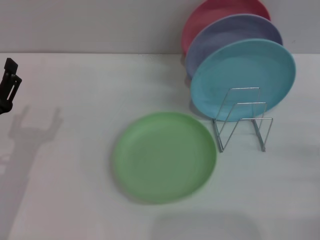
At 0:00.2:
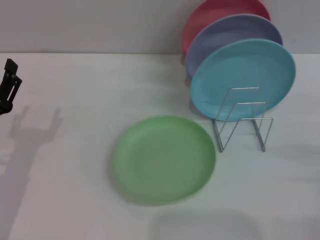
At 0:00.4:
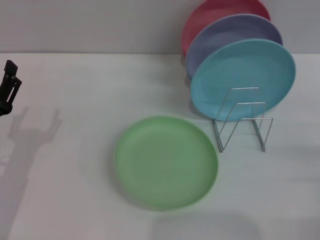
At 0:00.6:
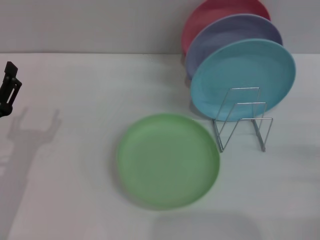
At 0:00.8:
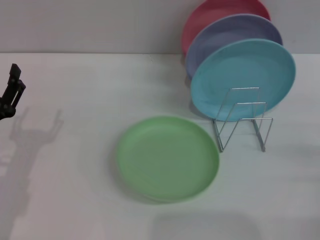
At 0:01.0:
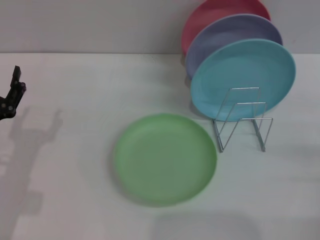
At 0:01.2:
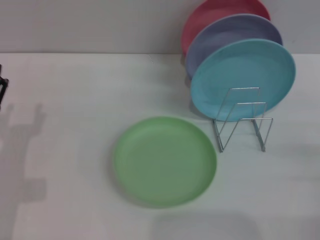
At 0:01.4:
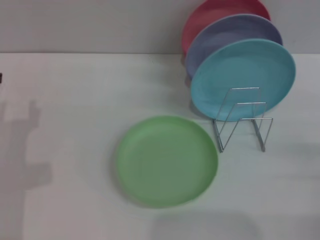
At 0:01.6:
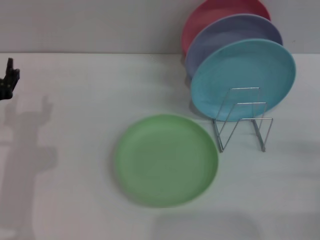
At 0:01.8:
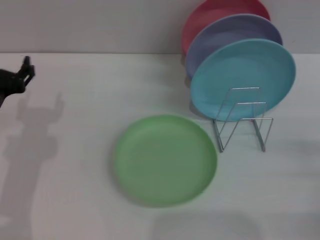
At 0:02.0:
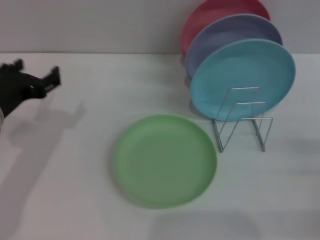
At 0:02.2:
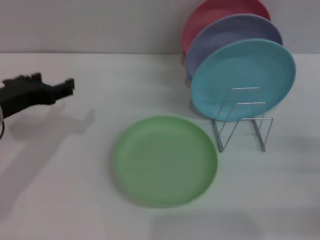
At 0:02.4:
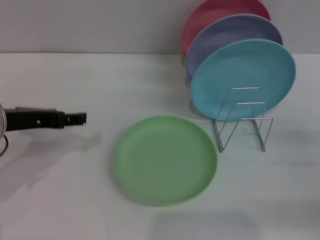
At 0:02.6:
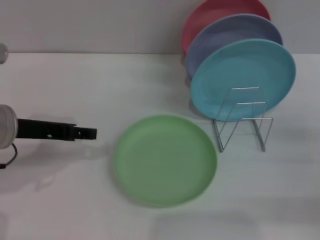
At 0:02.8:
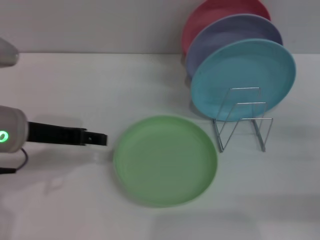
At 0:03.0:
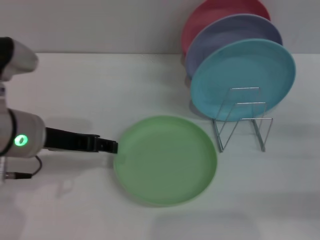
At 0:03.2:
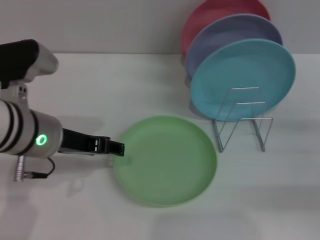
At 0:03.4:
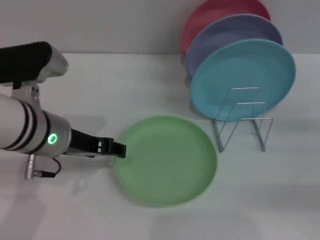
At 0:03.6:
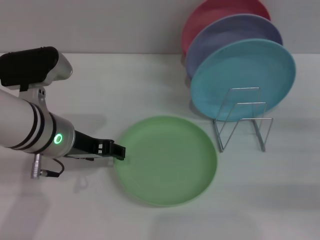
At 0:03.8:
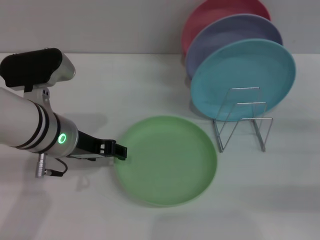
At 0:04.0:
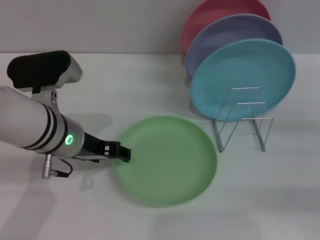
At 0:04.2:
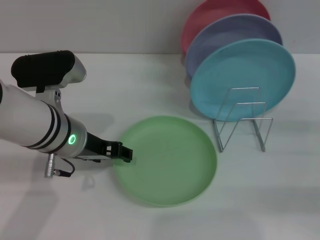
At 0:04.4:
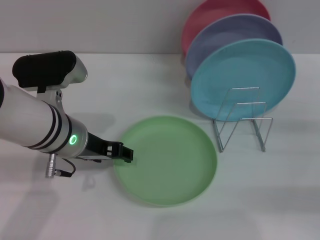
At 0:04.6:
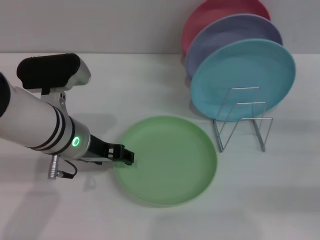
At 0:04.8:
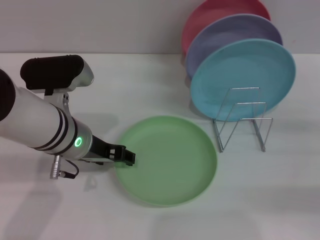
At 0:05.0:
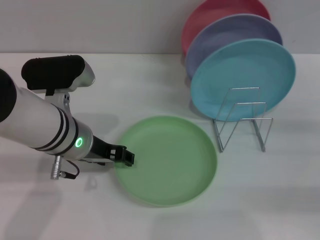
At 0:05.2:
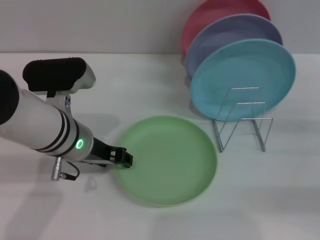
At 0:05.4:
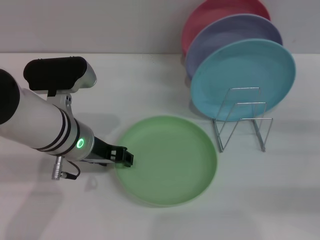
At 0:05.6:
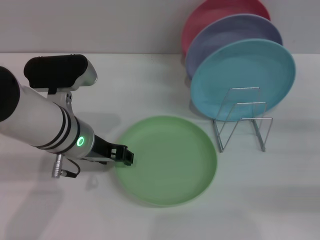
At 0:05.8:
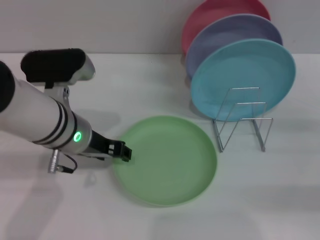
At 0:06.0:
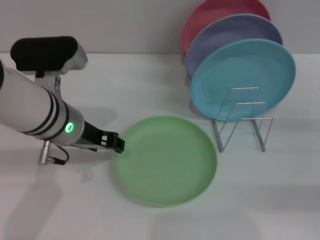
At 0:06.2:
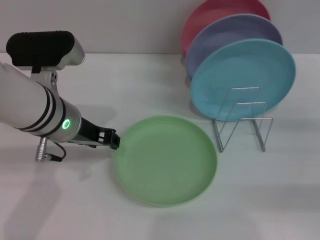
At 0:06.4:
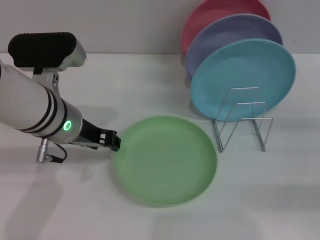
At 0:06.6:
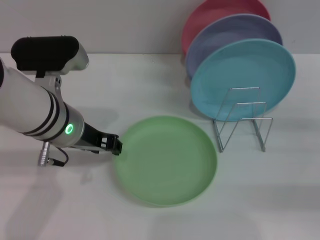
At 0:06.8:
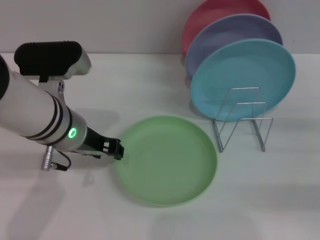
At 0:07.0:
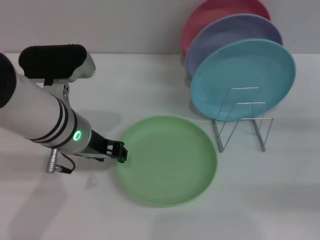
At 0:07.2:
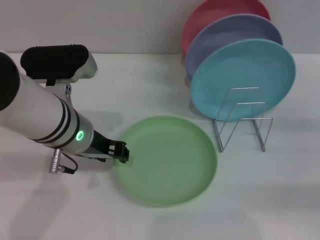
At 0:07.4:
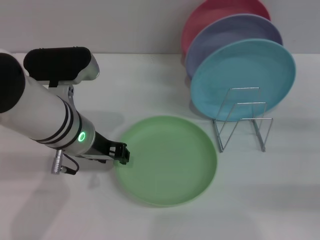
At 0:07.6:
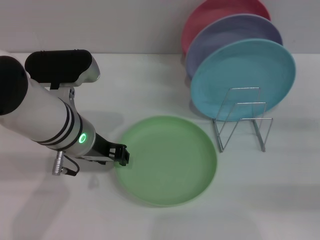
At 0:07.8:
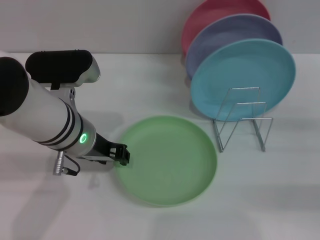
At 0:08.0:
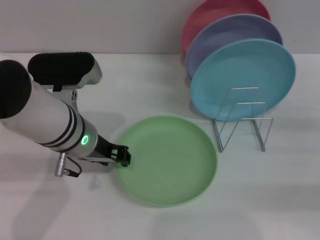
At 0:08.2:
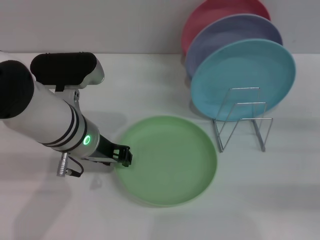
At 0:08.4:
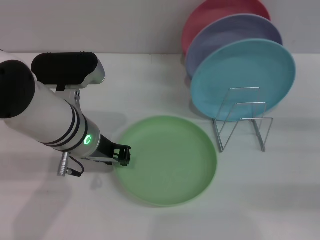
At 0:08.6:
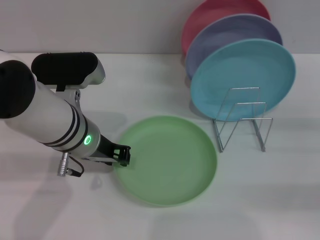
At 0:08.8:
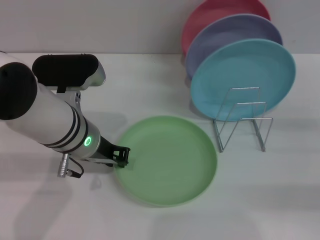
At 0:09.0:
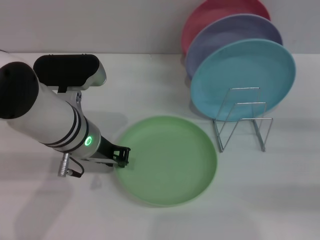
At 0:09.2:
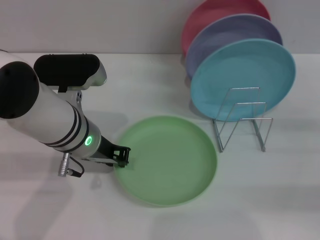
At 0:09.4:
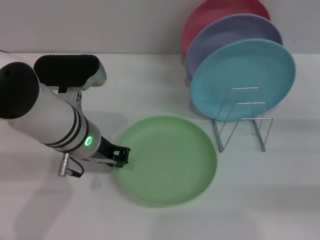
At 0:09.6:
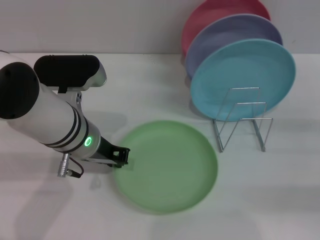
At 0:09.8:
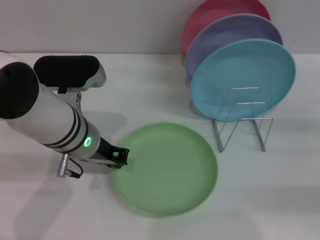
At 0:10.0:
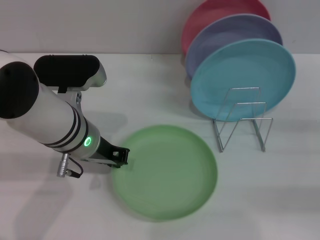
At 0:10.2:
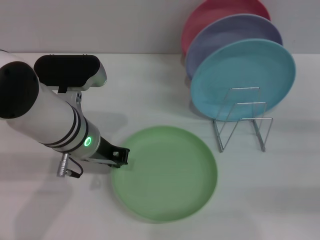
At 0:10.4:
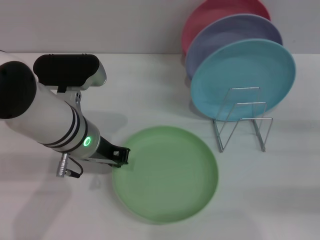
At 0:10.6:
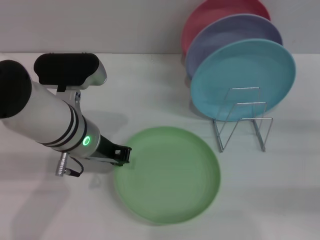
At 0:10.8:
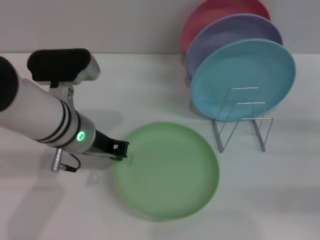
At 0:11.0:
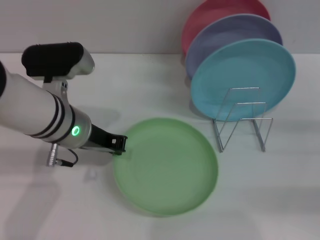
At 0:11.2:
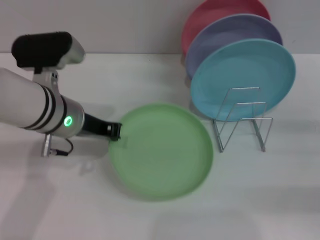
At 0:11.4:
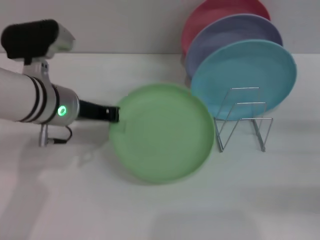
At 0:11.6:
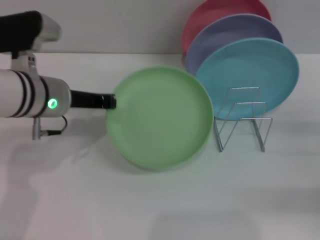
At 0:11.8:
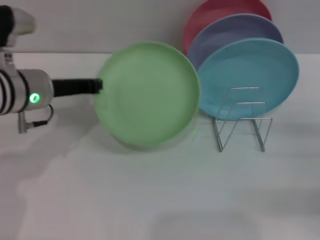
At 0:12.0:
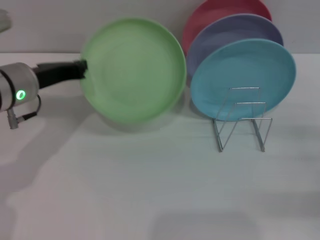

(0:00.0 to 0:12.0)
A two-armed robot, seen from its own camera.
Task of the whole recording: Grip the plate with one hand, pass it to the other, then set it on the shelf.
0:00.0 - 0:01.6: The left gripper shifts by roughly 5 cm.
0:01.6 - 0:03.0: The left gripper shifts about 10 cm upward and to the right.
0:03.0 - 0:04.4: The left gripper ends up some 5 cm from where it was.
0:04.4 - 0:07.6: The grippers make only small movements.
0:07.6 - 0:10.4: The two grippers keep their place.
0:10.4 - 0:12.0: The left gripper moves to the left, about 10 cm.

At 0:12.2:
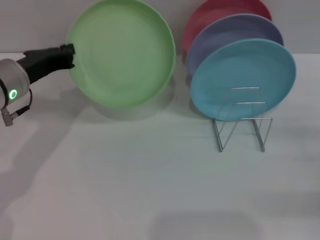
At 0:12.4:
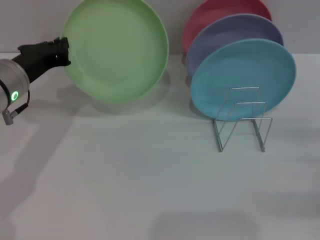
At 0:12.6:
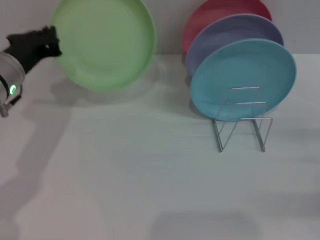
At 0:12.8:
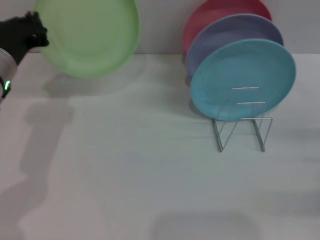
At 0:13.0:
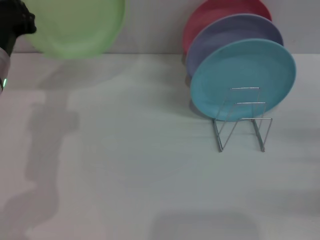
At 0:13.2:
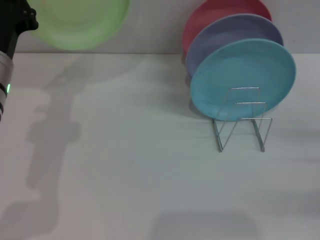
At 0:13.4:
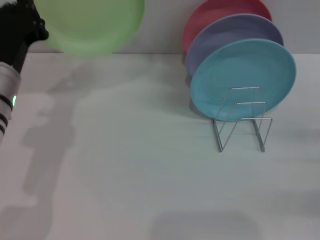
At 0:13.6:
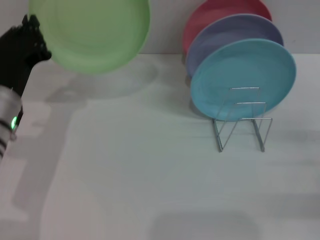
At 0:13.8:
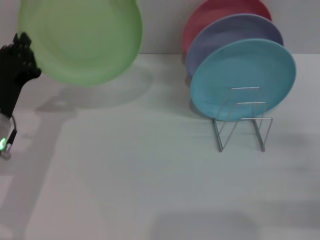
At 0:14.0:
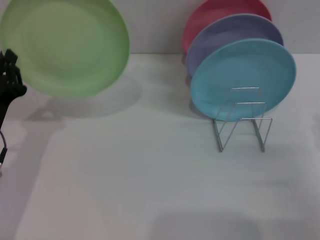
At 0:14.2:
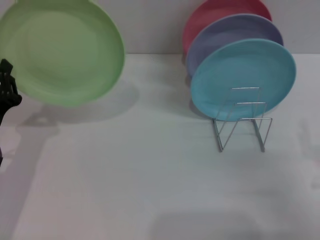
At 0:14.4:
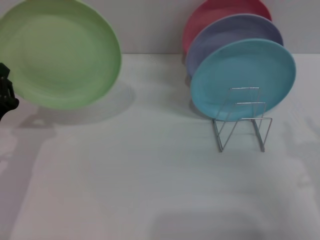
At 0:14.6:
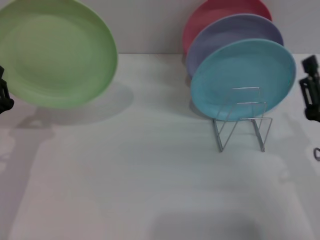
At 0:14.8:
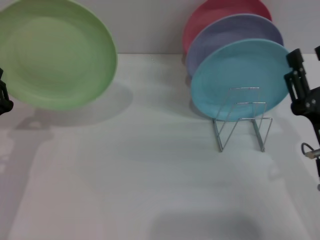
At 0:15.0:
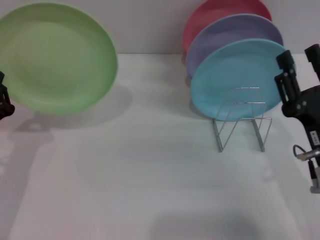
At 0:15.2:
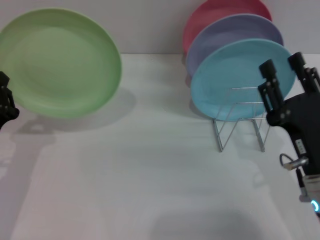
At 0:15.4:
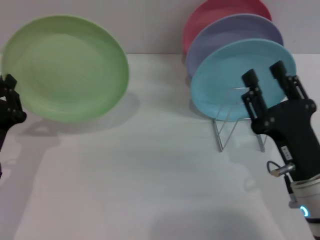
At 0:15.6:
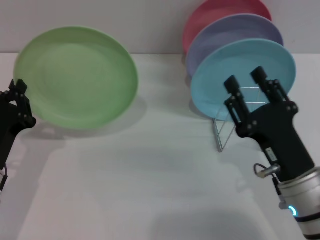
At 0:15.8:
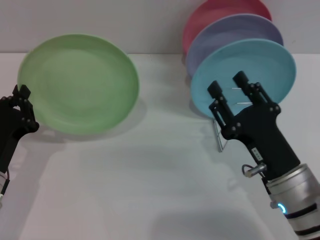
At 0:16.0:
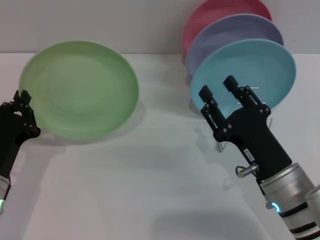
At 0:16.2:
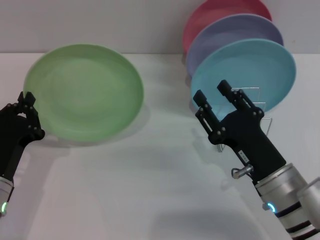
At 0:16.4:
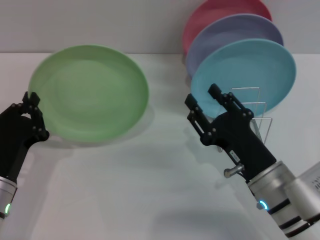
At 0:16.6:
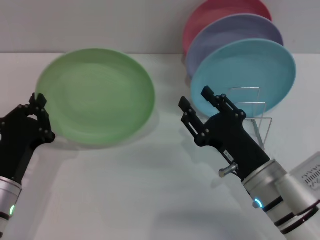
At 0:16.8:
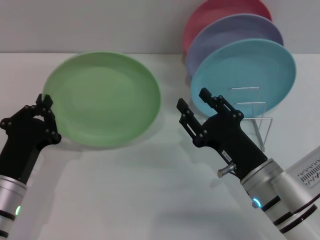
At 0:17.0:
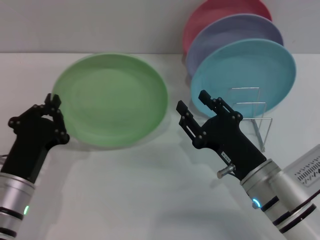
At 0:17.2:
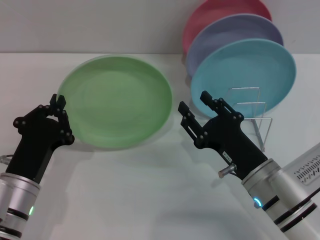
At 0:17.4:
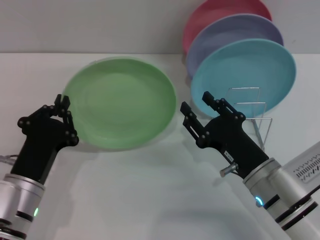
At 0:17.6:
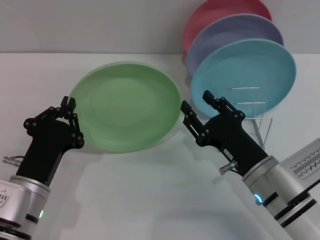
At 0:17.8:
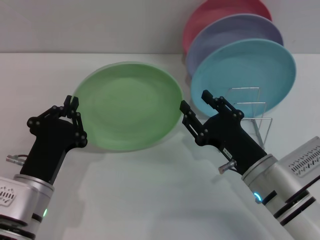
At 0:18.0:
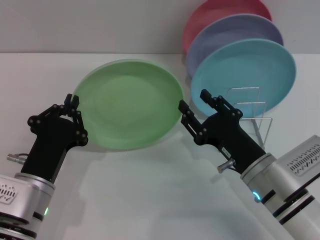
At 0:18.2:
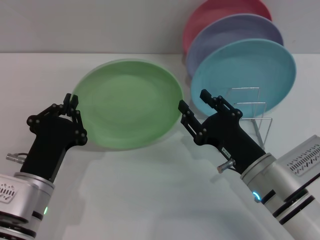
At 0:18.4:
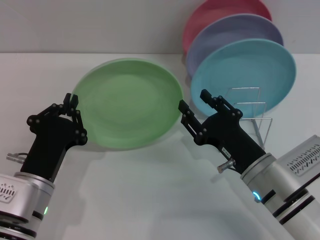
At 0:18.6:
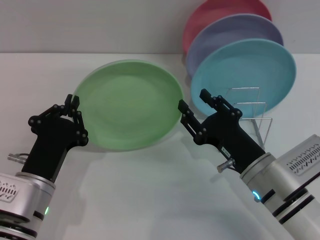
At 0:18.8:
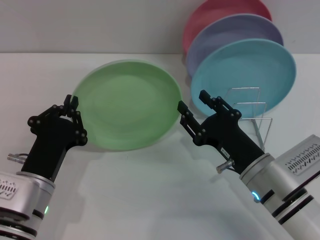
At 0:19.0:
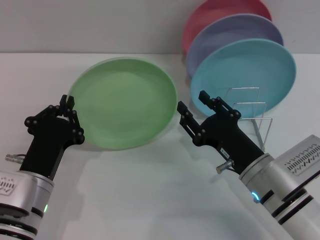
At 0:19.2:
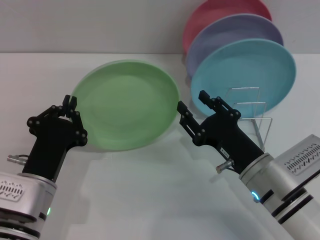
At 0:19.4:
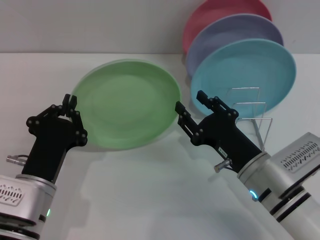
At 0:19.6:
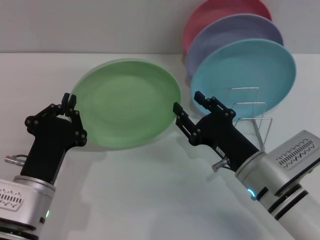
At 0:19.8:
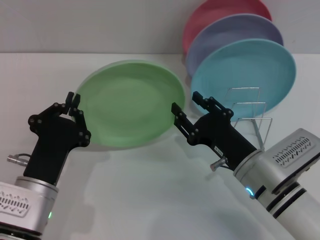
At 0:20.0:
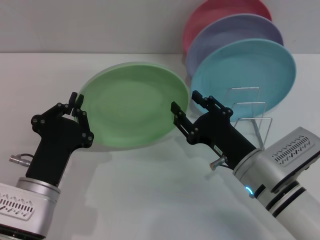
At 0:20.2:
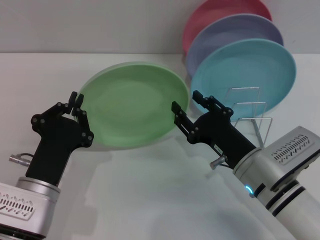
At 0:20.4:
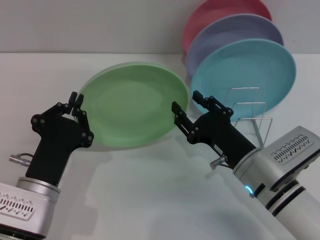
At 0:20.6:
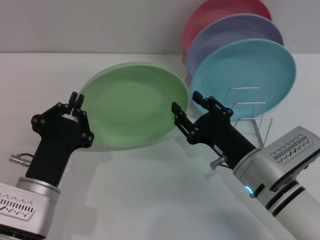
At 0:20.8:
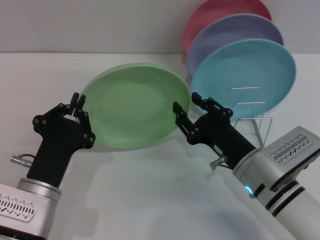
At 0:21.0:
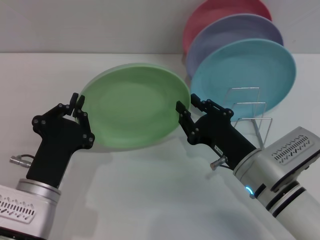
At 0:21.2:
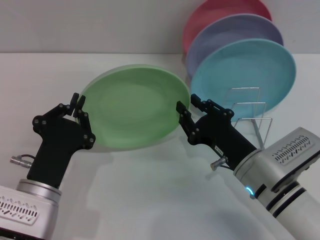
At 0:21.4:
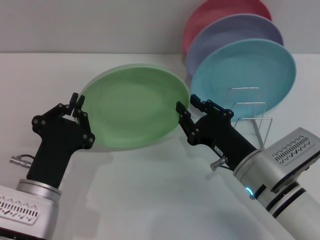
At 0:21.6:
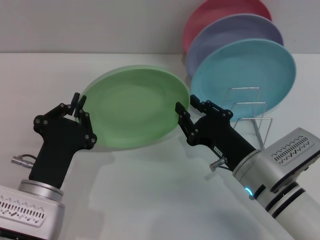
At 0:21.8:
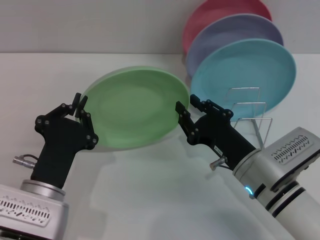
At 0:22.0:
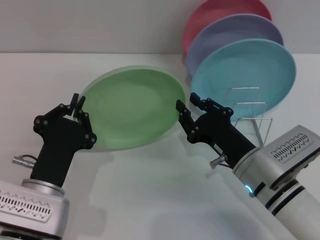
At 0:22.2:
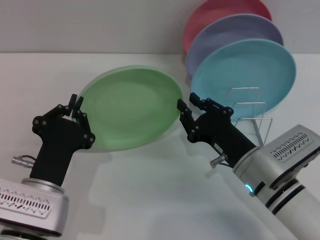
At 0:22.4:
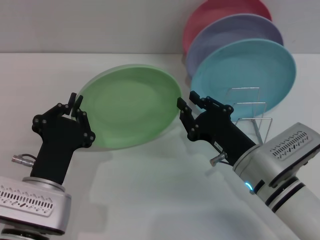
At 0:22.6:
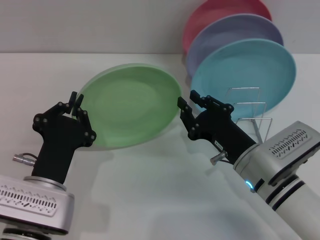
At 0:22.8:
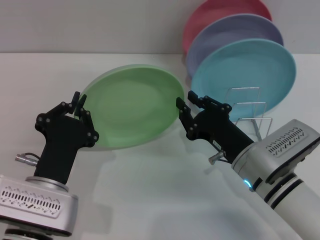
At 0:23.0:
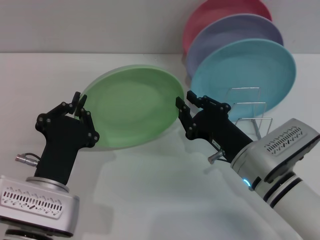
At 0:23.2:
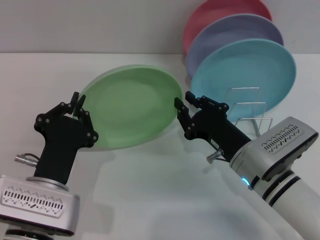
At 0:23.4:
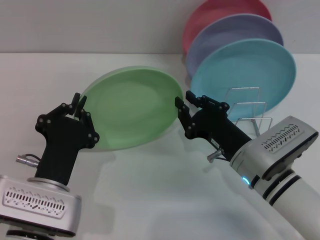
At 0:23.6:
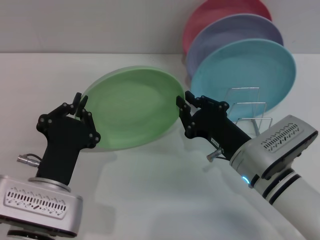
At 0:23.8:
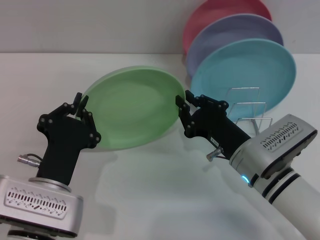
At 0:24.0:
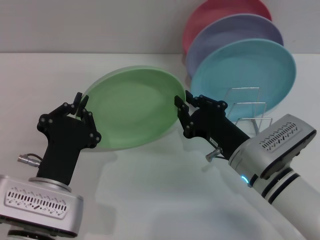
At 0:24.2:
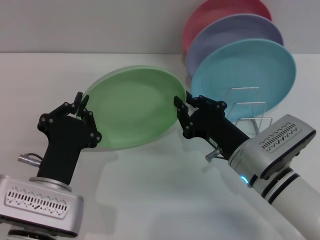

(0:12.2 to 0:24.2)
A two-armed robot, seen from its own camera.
Task of the whole recording: Grip the plate with one hand, pass it to the other, then set it on the shelf.
0:12.2 - 0:13.8: The left gripper shifts some 10 cm backward and downward.
0:13.8 - 0:15.2: The right gripper heads to the left, covering roughly 15 cm, while the left gripper ends up some 5 cm from where it was.
0:15.2 - 0:16.6: The right gripper moves roughly 5 cm.
0:18.2 - 0:19.8: The grippers stay close to where they were, moving slightly.
0:19.8 - 0:21.2: The right gripper closes.
0:21.2 - 0:22.6: There are only small adjustments of the grippers.
0:22.6 - 0:24.2: The two grippers keep their place.
